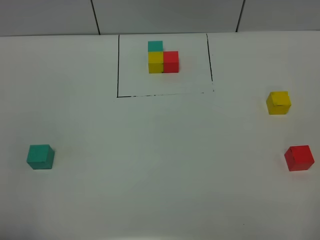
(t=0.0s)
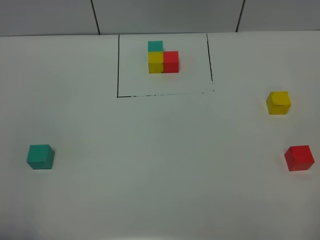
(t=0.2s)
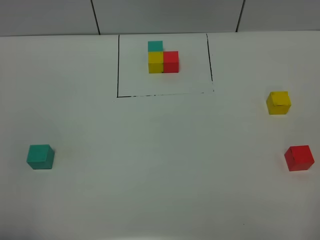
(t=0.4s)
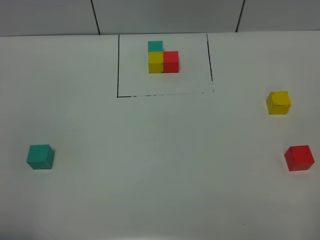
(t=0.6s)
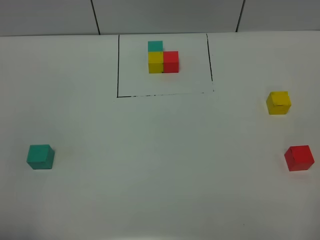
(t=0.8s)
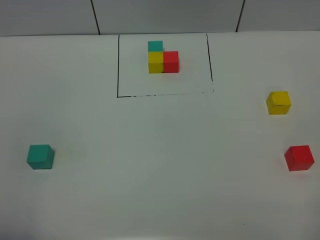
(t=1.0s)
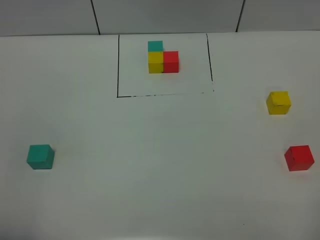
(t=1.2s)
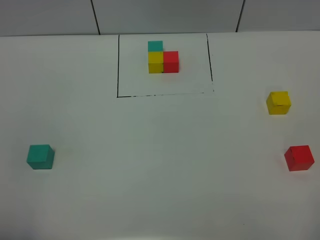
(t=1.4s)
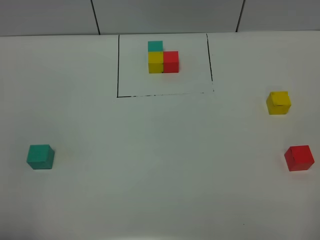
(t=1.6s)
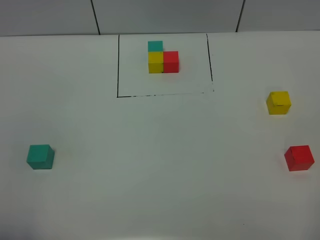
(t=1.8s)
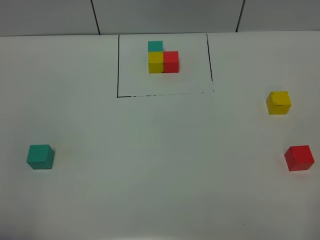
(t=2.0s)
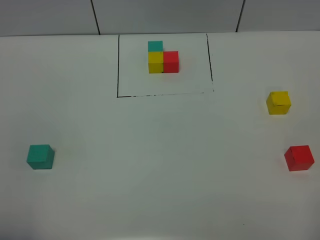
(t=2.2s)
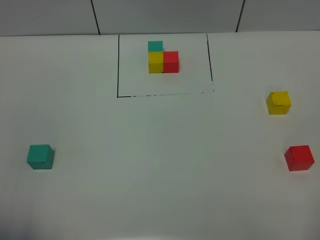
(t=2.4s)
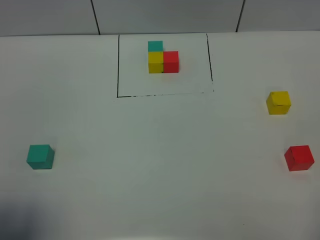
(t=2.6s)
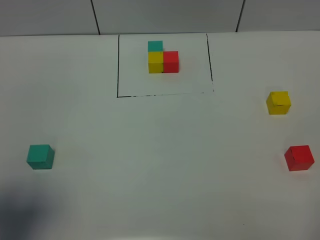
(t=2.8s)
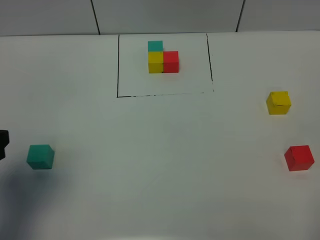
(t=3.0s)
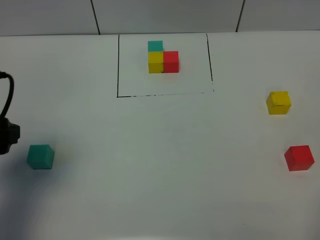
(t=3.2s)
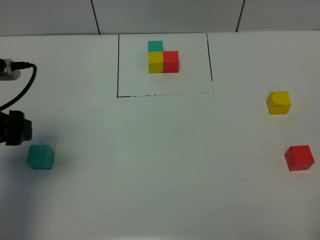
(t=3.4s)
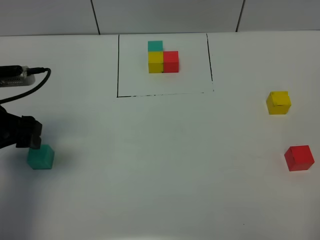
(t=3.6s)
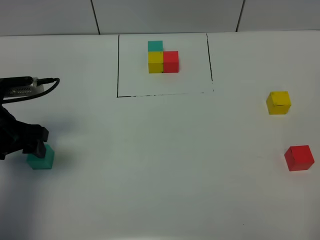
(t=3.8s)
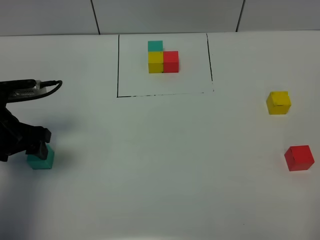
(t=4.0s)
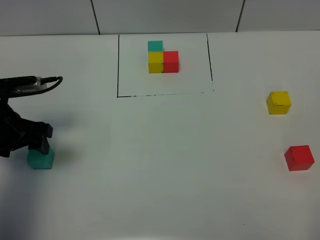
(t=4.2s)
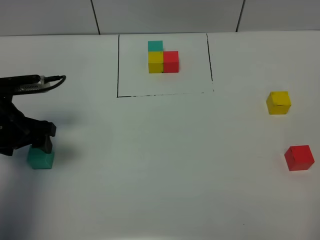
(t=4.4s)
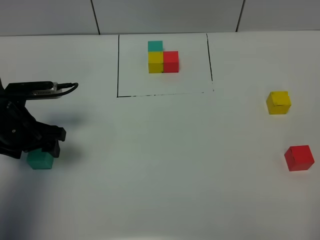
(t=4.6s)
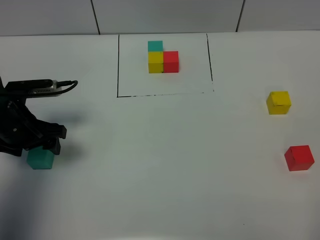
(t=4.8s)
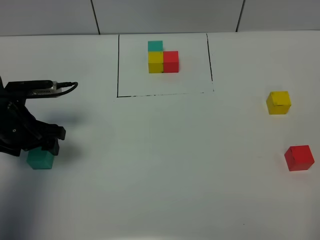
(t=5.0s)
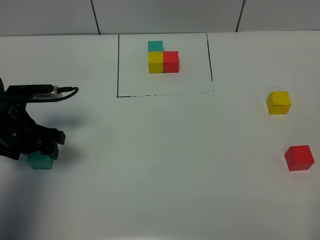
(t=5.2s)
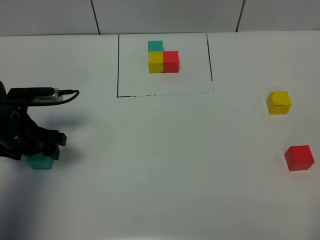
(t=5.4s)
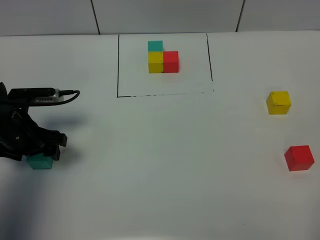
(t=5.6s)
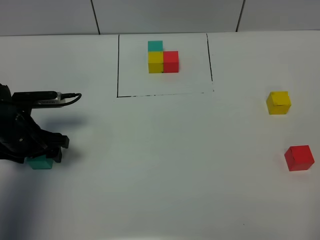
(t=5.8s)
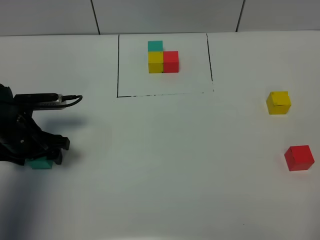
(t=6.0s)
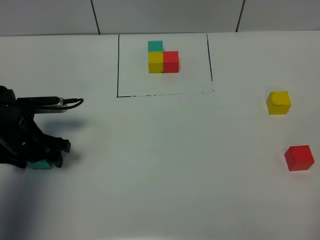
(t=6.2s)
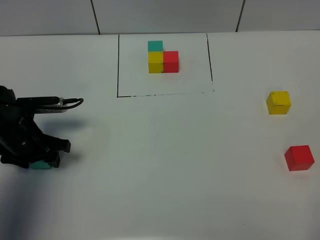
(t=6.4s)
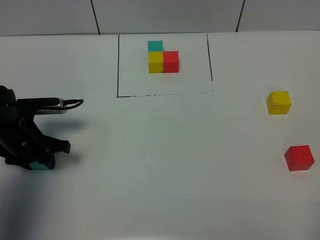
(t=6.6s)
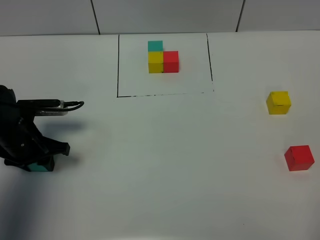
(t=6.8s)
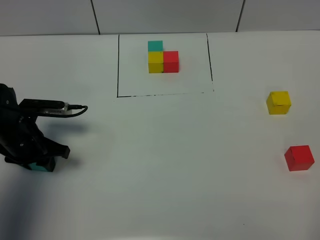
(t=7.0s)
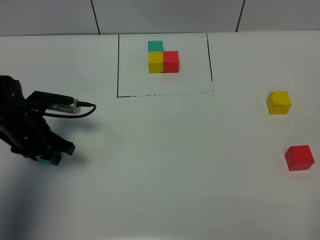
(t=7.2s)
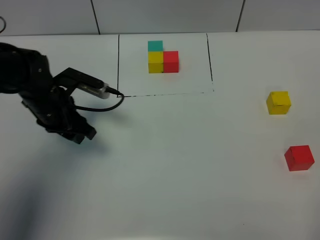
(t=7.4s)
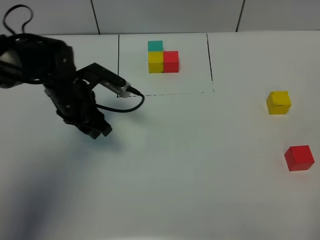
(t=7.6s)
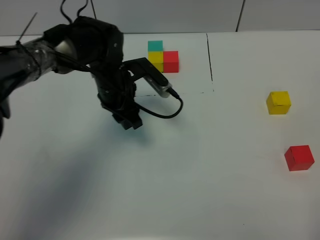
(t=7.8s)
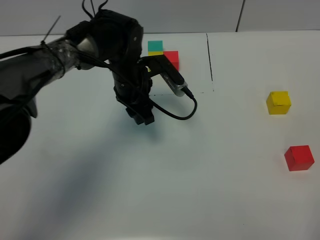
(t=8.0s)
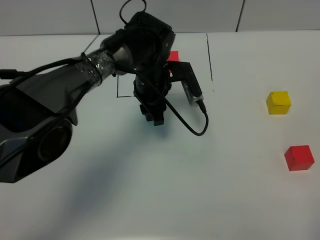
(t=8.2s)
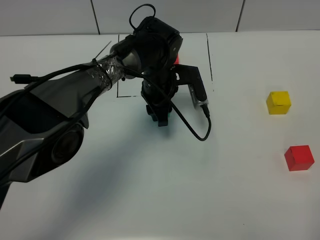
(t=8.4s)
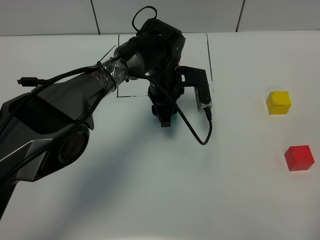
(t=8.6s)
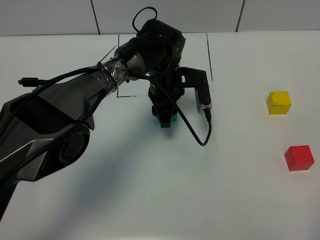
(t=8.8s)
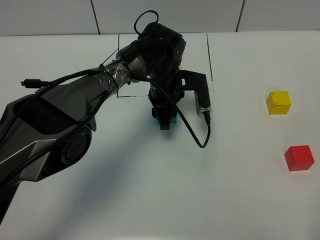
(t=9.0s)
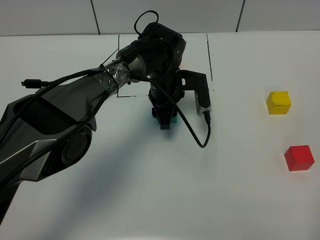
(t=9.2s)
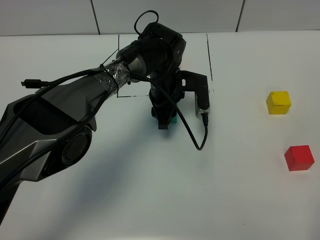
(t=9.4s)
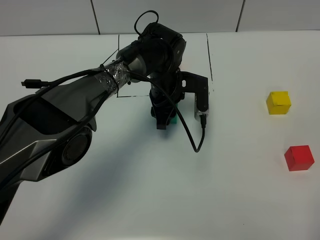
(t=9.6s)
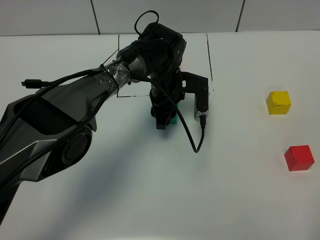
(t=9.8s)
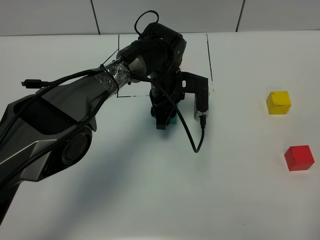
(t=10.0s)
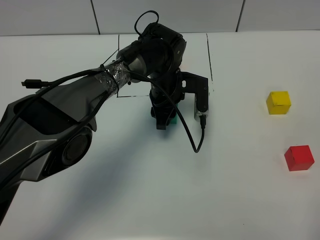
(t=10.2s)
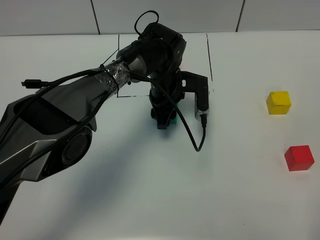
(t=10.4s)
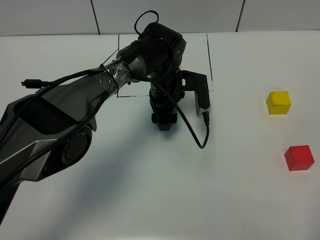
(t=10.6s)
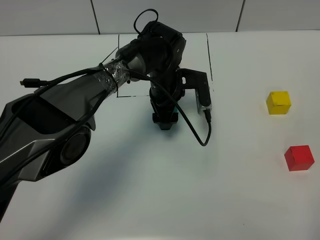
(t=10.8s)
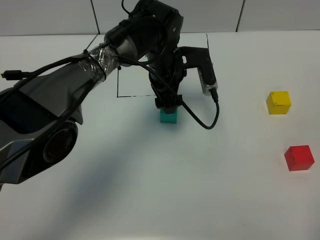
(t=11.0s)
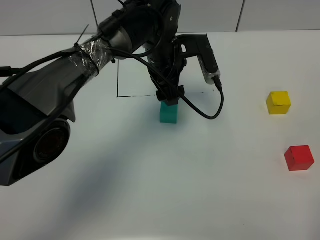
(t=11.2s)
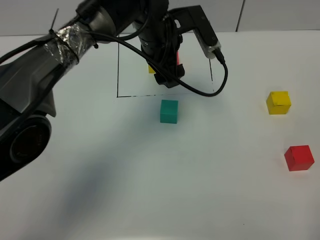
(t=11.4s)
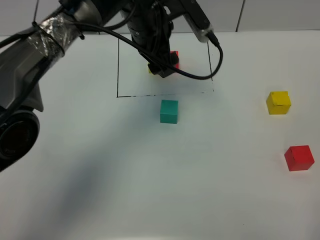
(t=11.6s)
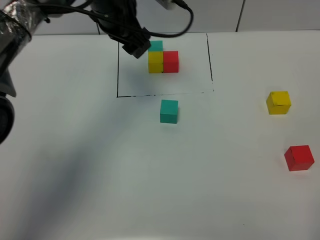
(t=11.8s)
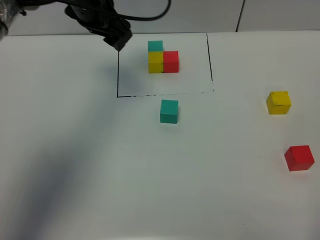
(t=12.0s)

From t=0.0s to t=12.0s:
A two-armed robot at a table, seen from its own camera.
Task of the whole recording: According to the building block template in front, assemble the scattered blocks together.
Step, from t=0.0s to t=10.6s: Put the green build block in the center of the table.
From t=0.0s to t=1.6s: Both grippers stay put.
From t=1.6s to t=3.0s: The left gripper is displaced forward by approximately 15 cm.
From t=3.0s to t=4.4s: The left gripper moves forward and downward, about 15 cm.
From t=4.4s to t=6.0s: The left gripper shifts approximately 5 cm downward.
From t=6.0s to t=7.6s: The left gripper shifts roughly 15 cm to the right and forward, and closes its fingers.
From t=7.6s to t=9.0s: The left gripper travels to the right by approximately 15 cm.
From t=9.0s to t=10.4s: The left gripper opens.
From t=10.4s to t=12.0s: The left gripper is displaced upward and to the left by roughly 25 cm, and opens its fingers.

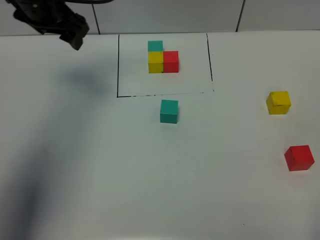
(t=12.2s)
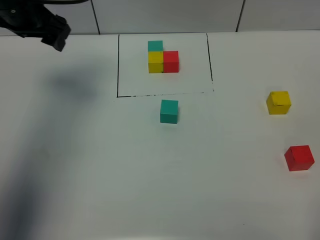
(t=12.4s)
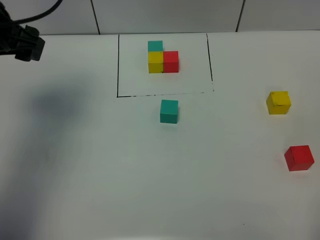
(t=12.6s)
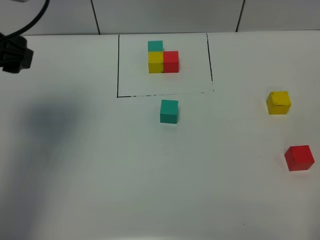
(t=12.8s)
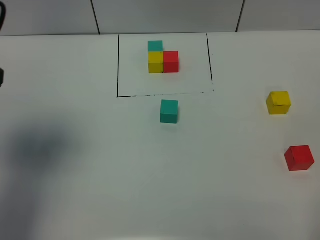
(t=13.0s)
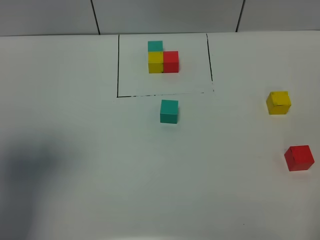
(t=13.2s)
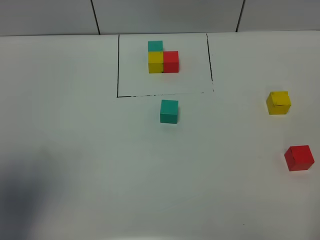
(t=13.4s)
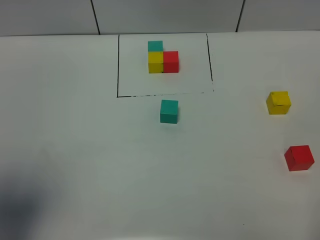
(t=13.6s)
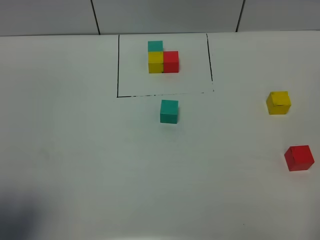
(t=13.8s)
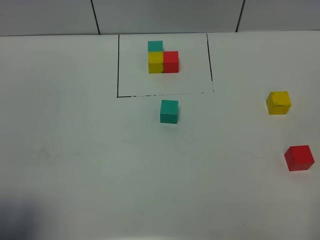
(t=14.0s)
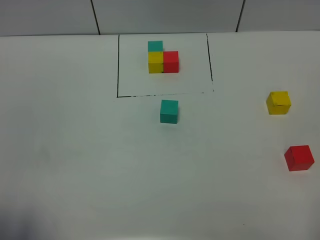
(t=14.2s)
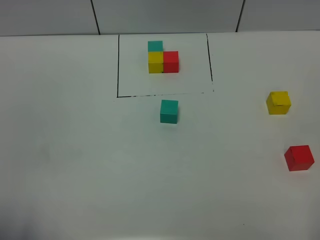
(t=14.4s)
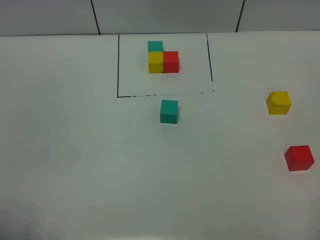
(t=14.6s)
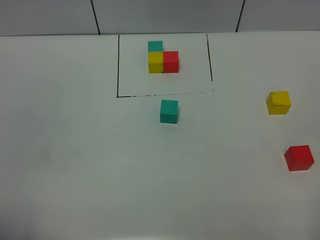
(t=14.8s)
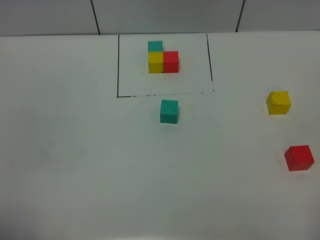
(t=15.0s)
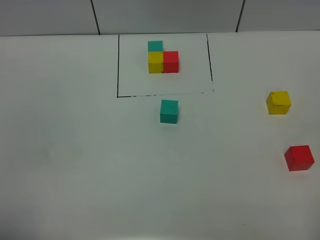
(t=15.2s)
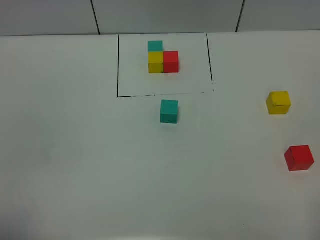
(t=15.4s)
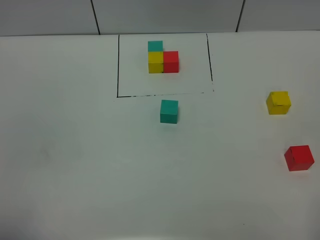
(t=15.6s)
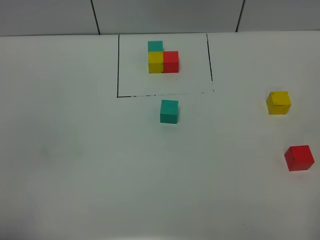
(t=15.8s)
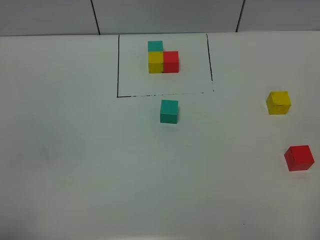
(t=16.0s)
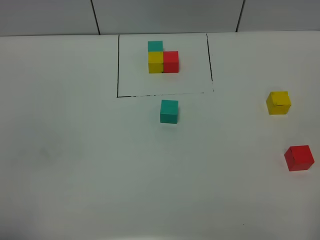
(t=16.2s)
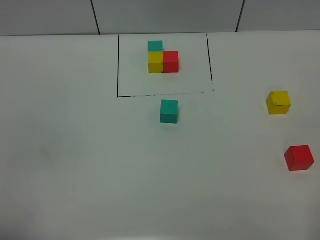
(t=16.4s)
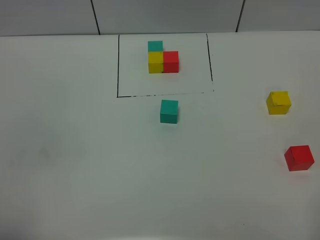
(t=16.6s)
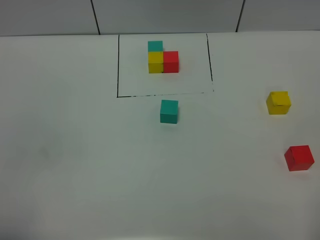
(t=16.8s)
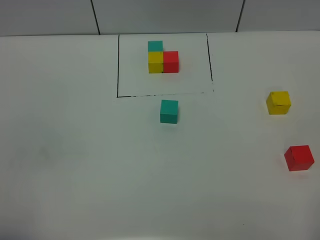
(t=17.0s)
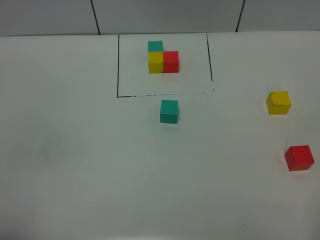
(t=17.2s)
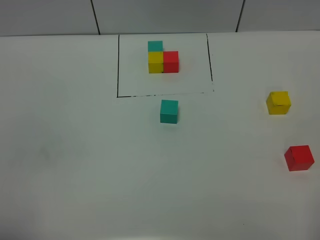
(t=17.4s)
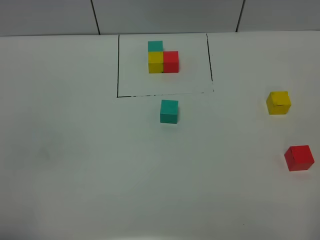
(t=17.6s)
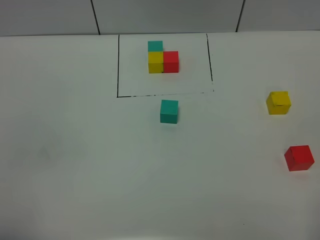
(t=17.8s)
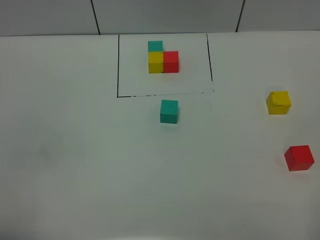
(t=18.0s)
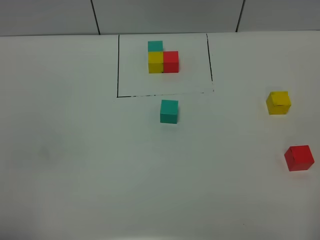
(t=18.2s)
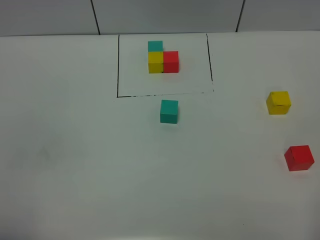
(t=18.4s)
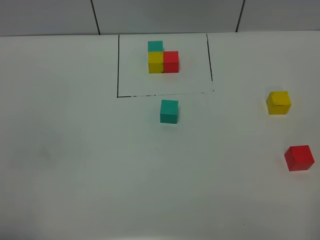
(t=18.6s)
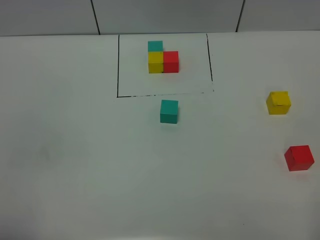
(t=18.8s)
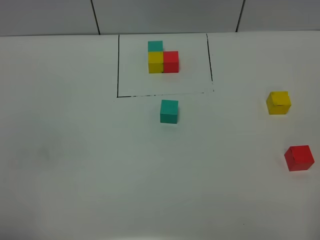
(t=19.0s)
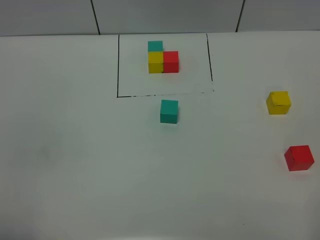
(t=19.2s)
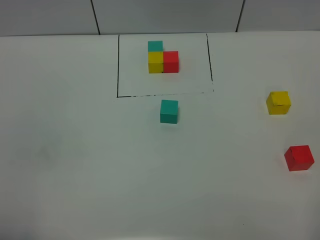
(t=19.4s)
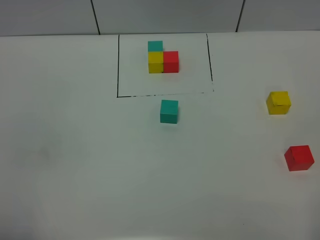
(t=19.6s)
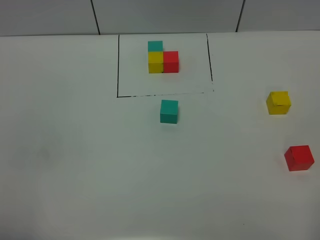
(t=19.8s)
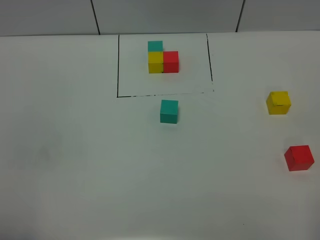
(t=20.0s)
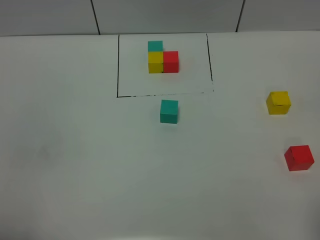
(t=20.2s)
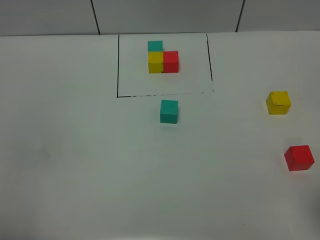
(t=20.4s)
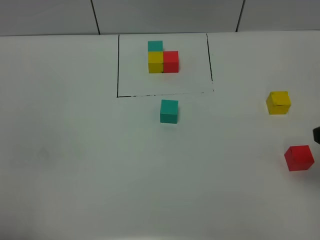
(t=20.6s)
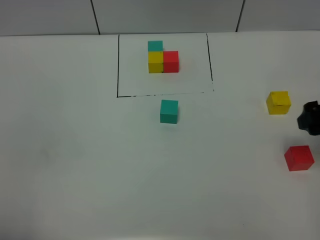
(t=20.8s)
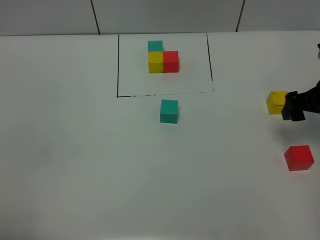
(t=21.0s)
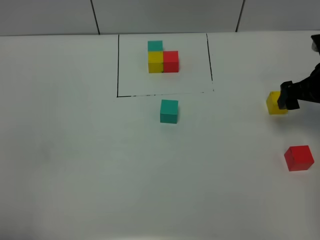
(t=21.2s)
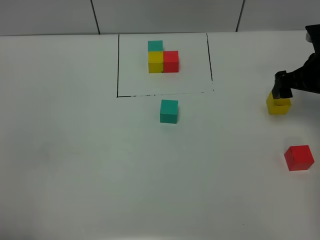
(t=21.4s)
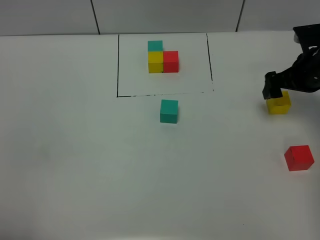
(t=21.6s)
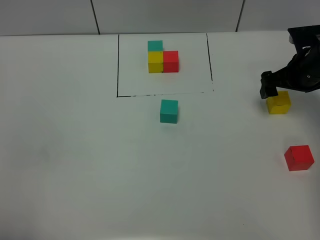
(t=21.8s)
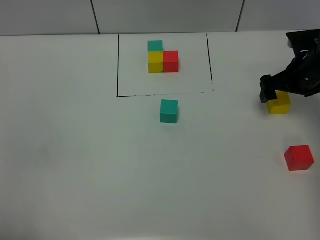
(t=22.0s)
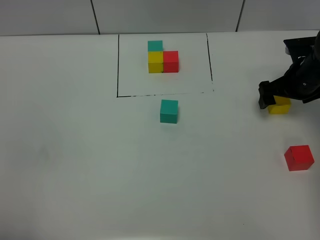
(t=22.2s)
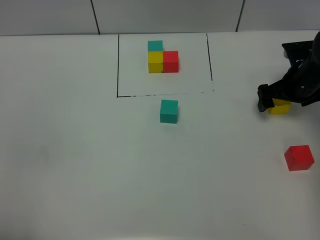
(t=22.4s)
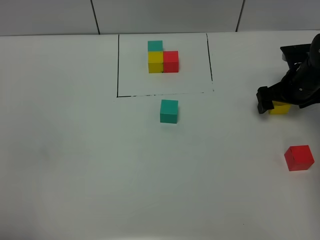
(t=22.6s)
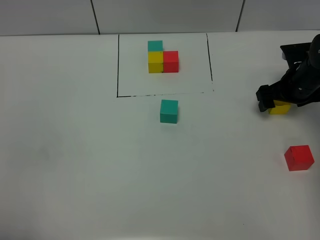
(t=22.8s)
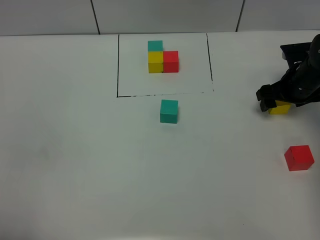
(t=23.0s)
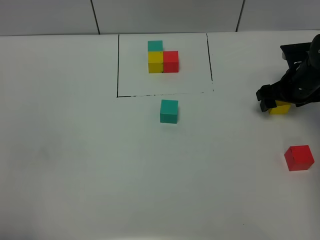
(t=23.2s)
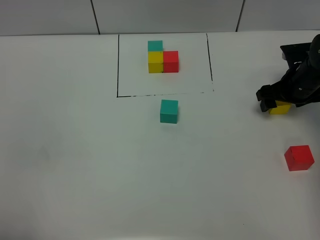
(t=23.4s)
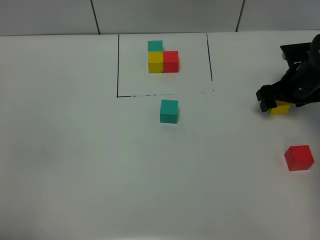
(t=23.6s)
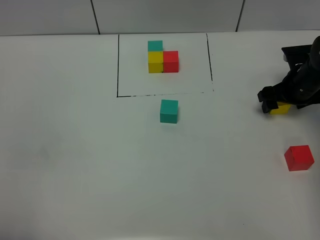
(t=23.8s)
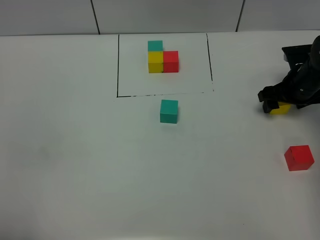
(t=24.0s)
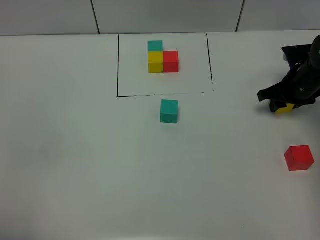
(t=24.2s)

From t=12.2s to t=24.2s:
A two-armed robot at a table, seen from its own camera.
Task of the whole recording: According to the building block template in front, assemble the scattered blocks together.
From t=12.2s to t=13.8s: The left gripper goes roughly 35 cm backward.
From t=13.8s to t=15.2s: The left gripper heads backward, covering roughly 5 cm.
From t=16.6s to t=18.2s: Both grippers stay about where they are.
From t=18.2s to t=19.8s: Both grippers stay put.
From t=19.8s to t=21.2s: The right gripper heads forward, covering some 35 cm.
From t=21.2s to t=22.6s: The right gripper moves downward and forward, about 10 cm.
From t=22.6s to t=24.2s: The right gripper closes its fingers.
